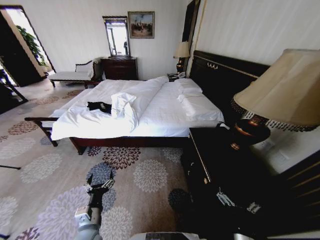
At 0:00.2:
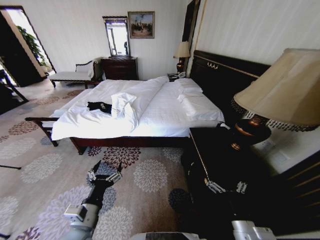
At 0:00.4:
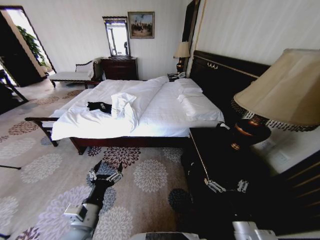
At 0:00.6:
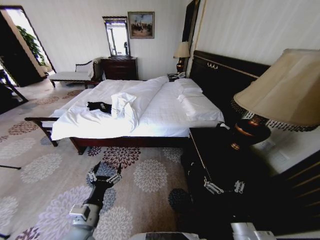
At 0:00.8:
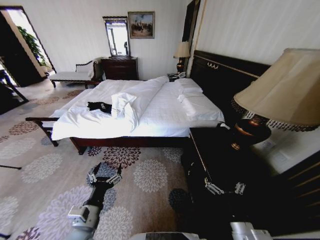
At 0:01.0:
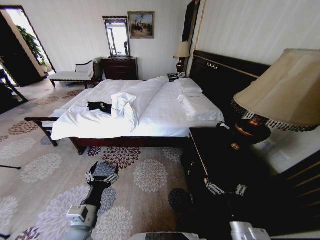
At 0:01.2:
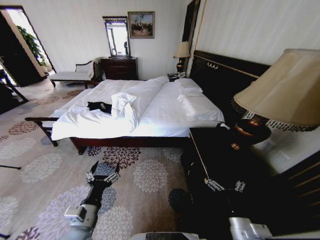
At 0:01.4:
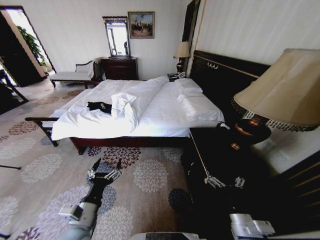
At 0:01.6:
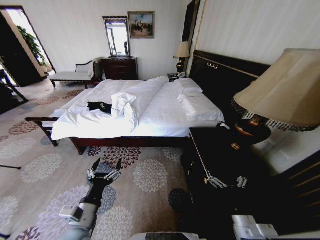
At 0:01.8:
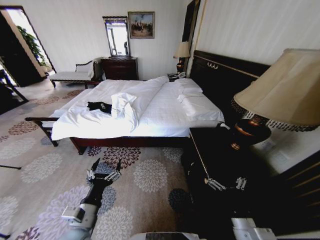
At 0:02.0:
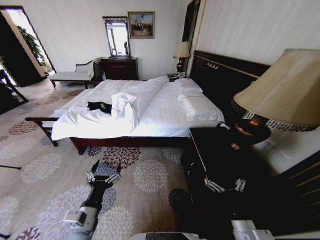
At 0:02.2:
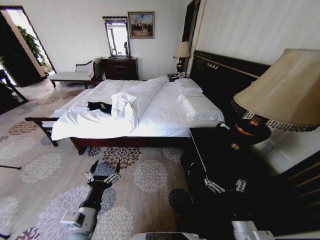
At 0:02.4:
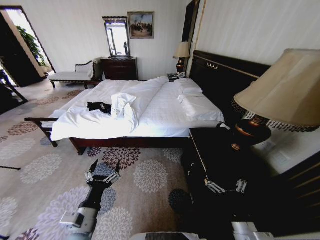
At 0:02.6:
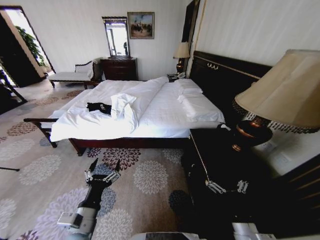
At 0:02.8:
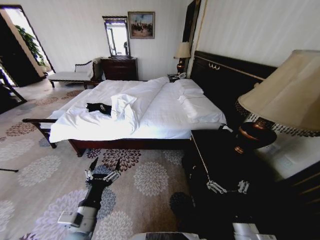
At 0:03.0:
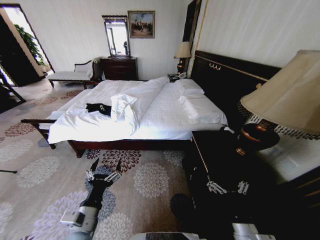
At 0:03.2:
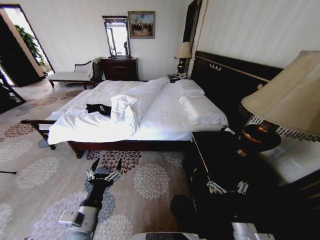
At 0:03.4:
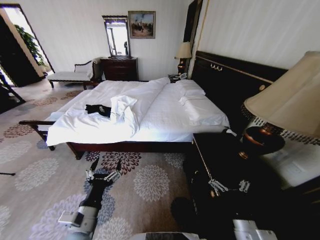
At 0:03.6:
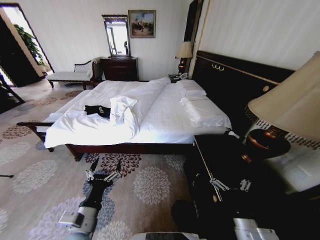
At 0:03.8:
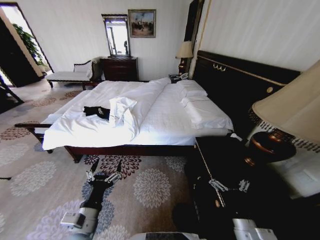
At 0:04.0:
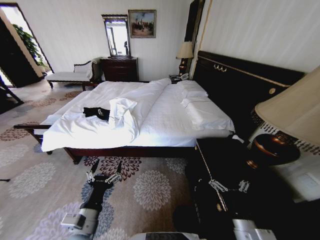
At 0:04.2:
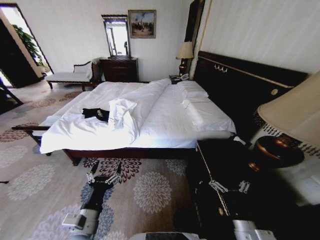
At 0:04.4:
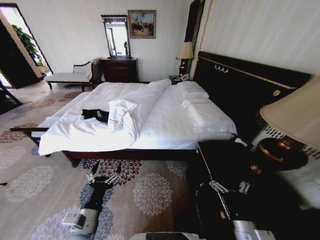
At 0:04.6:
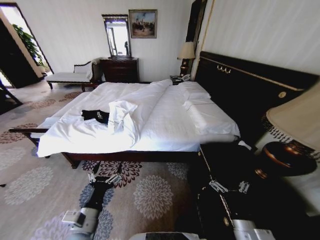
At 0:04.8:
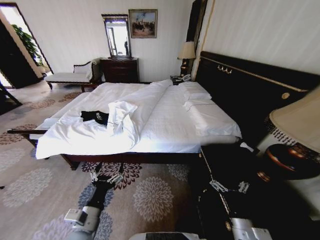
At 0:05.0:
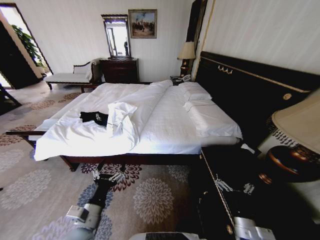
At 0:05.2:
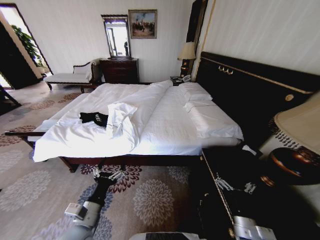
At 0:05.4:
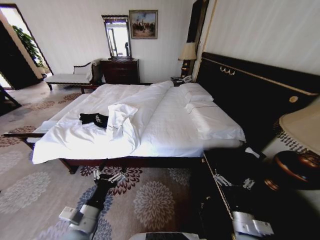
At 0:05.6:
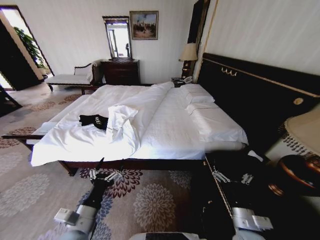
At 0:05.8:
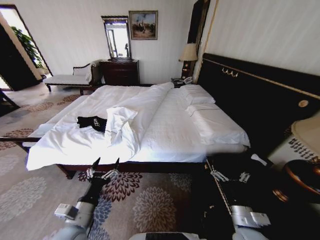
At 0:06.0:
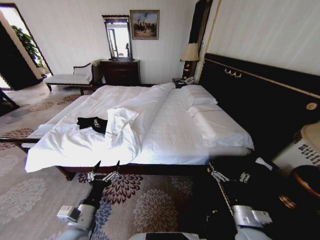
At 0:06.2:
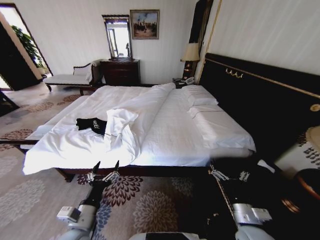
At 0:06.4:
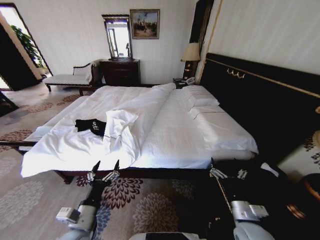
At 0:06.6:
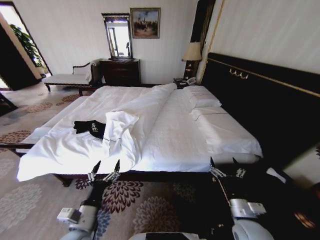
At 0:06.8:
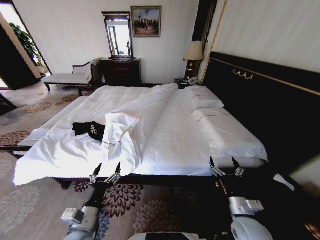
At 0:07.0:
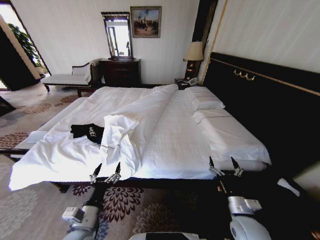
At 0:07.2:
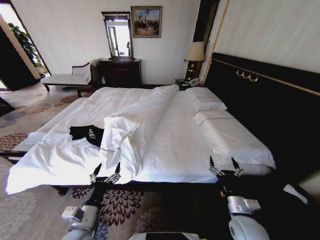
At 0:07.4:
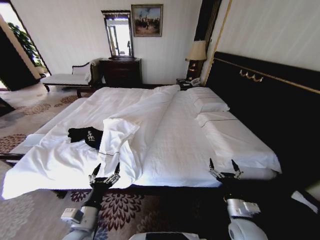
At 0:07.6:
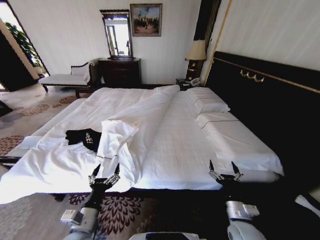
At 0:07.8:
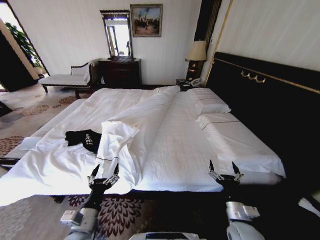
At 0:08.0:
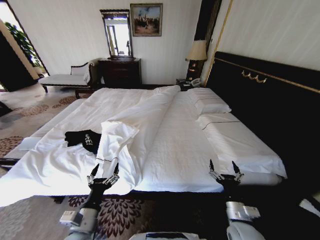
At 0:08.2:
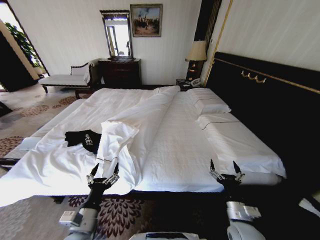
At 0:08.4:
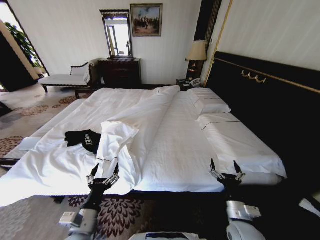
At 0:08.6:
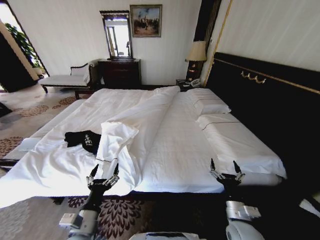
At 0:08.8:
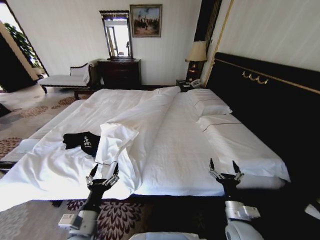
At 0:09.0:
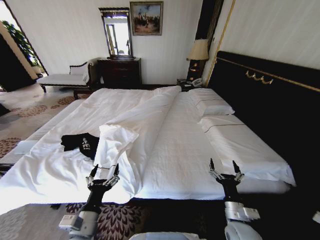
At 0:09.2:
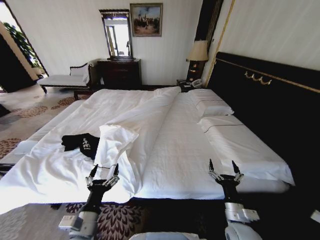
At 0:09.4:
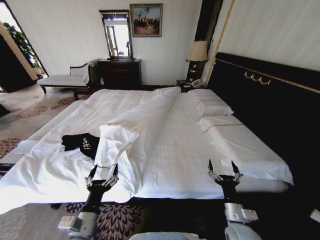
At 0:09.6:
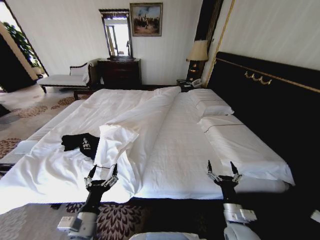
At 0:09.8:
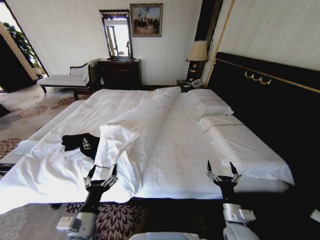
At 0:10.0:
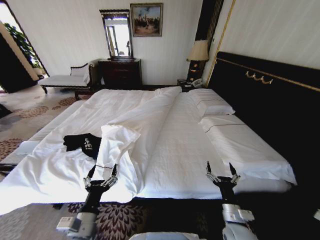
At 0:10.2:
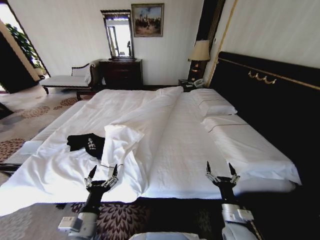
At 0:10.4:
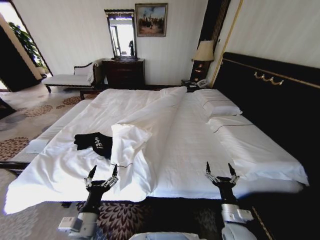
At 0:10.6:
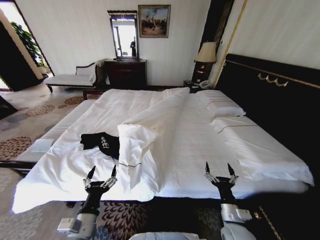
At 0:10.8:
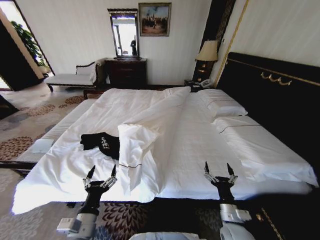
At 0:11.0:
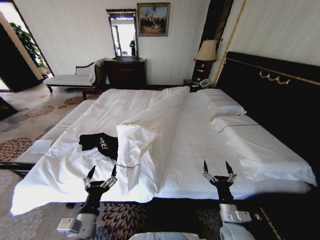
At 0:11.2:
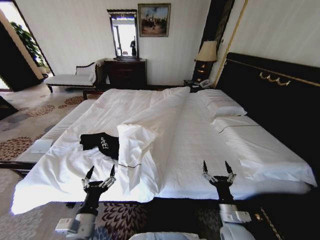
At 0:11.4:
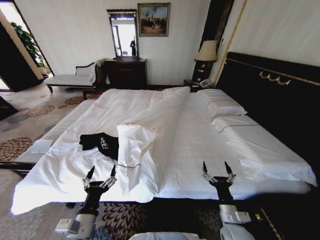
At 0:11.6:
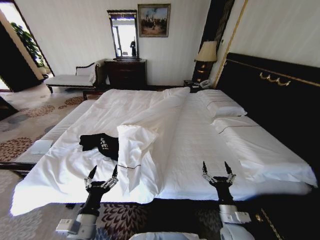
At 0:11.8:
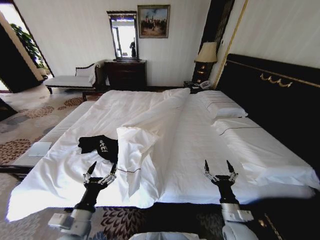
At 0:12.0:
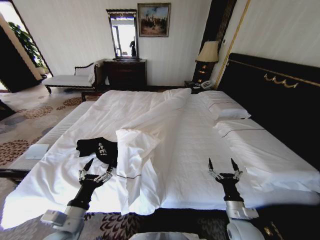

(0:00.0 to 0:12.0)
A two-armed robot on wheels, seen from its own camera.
Task of the whole recording: Fold the clothes on the bed.
0:01.6 - 0:03.0: There are only small adjustments of the grippers.
0:10.4 - 0:12.0: The left gripper shifts by about 5 cm.

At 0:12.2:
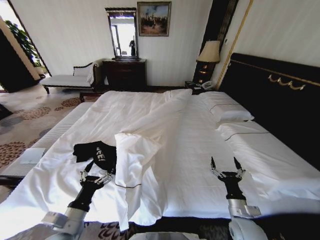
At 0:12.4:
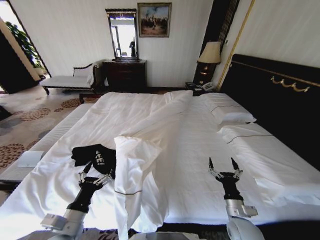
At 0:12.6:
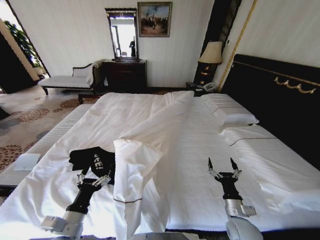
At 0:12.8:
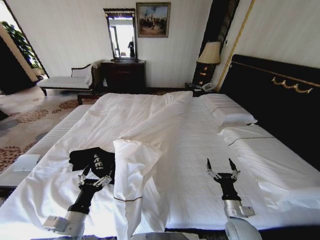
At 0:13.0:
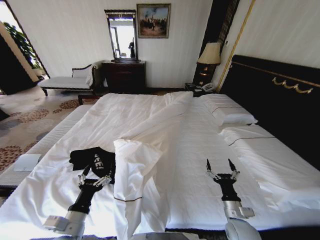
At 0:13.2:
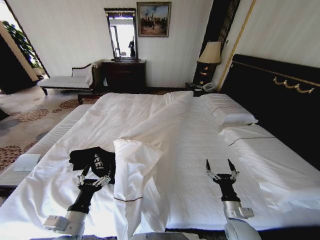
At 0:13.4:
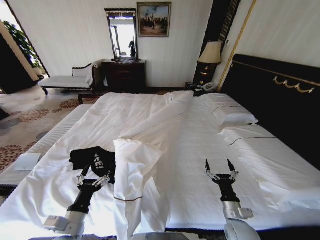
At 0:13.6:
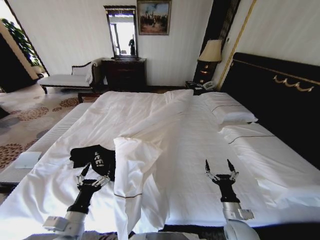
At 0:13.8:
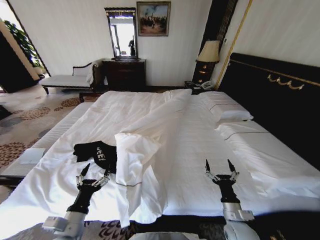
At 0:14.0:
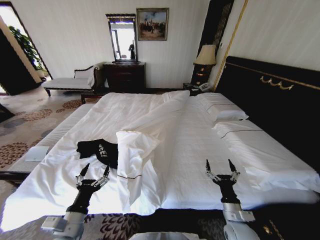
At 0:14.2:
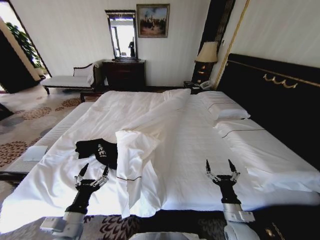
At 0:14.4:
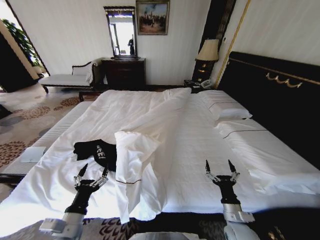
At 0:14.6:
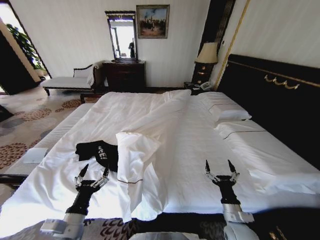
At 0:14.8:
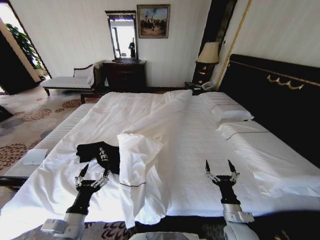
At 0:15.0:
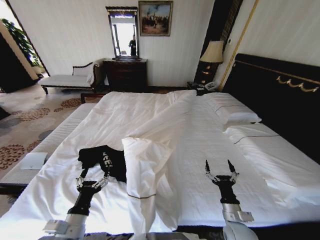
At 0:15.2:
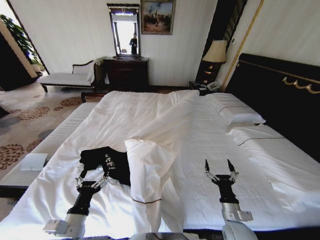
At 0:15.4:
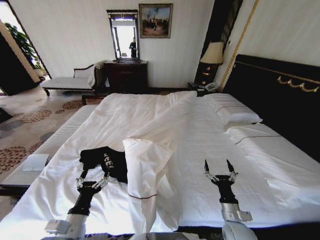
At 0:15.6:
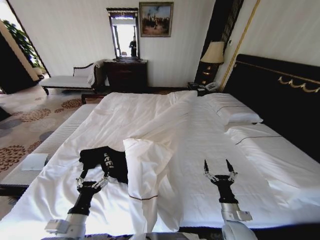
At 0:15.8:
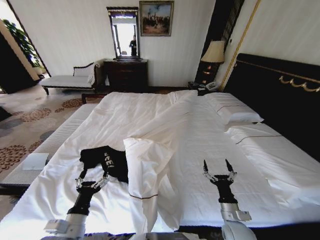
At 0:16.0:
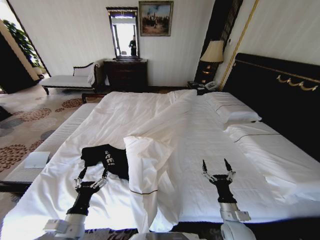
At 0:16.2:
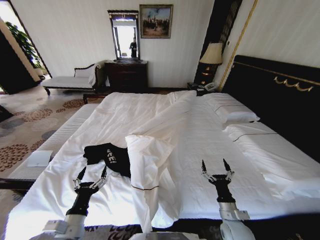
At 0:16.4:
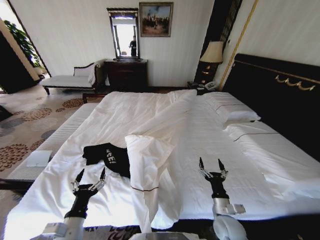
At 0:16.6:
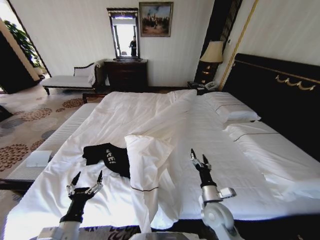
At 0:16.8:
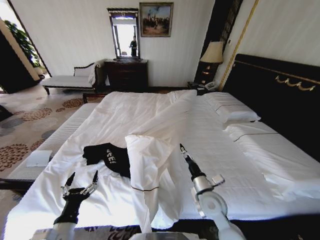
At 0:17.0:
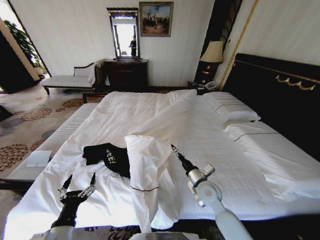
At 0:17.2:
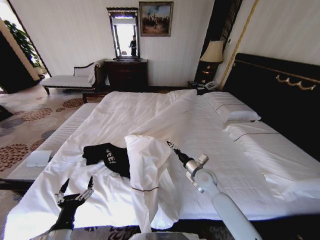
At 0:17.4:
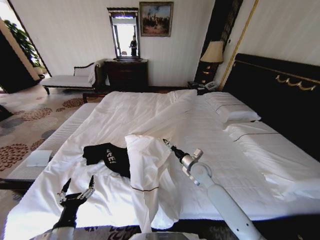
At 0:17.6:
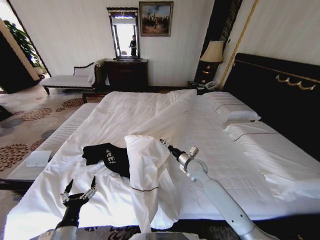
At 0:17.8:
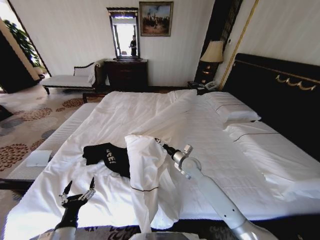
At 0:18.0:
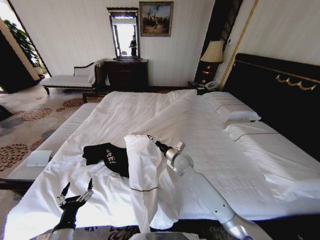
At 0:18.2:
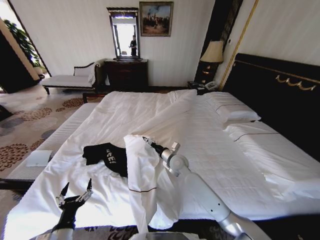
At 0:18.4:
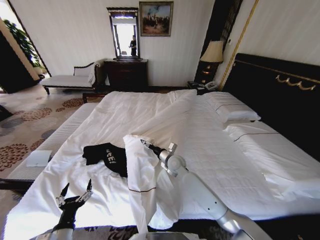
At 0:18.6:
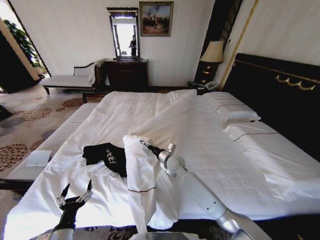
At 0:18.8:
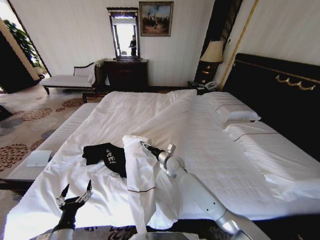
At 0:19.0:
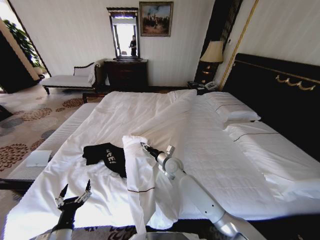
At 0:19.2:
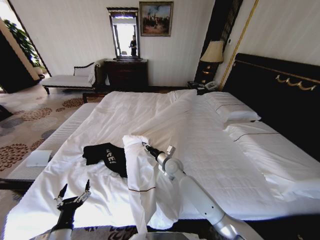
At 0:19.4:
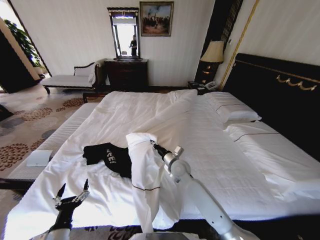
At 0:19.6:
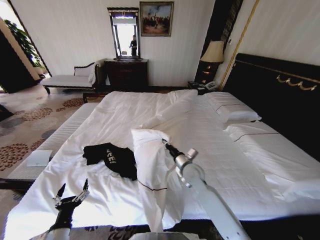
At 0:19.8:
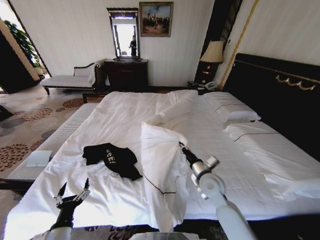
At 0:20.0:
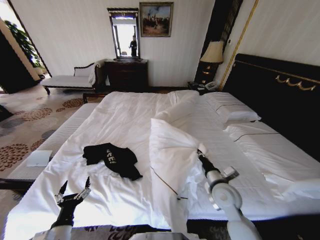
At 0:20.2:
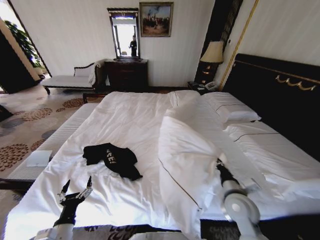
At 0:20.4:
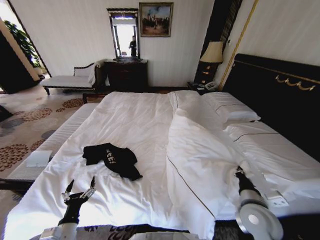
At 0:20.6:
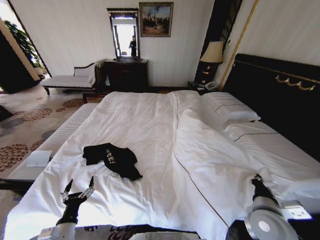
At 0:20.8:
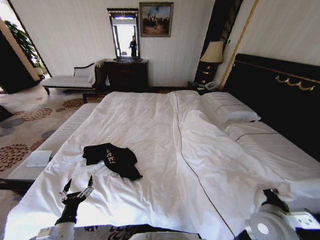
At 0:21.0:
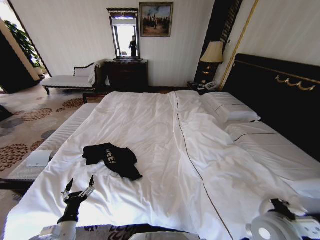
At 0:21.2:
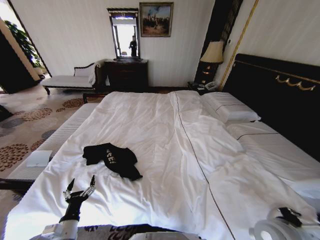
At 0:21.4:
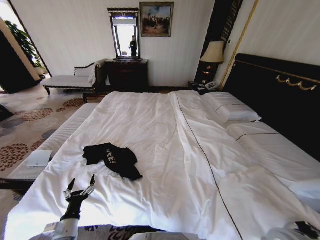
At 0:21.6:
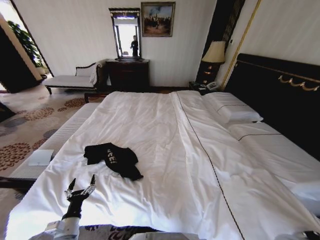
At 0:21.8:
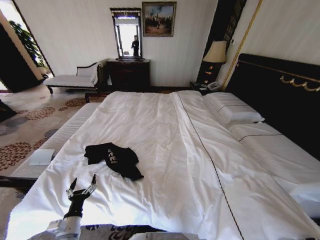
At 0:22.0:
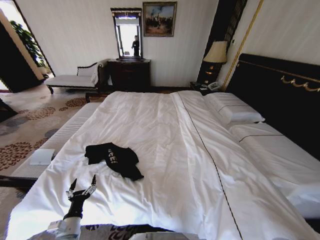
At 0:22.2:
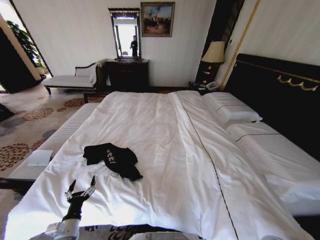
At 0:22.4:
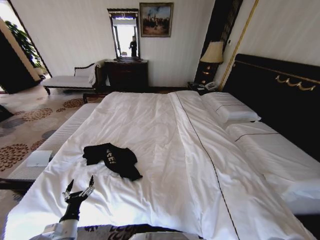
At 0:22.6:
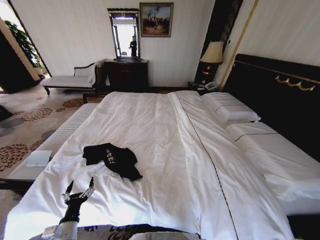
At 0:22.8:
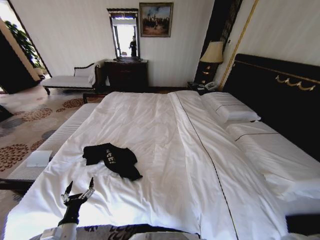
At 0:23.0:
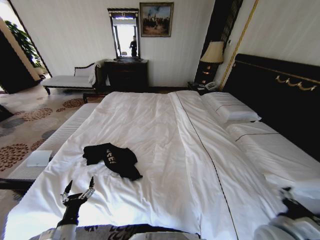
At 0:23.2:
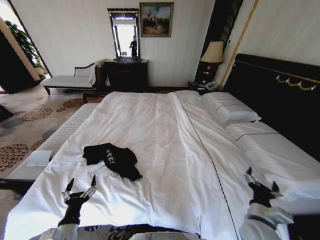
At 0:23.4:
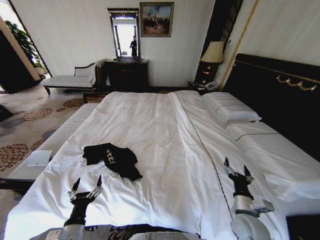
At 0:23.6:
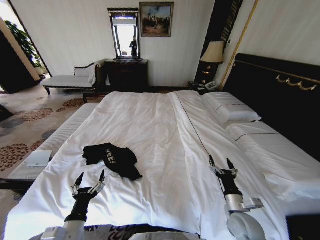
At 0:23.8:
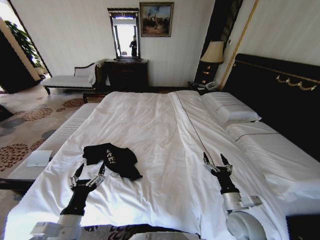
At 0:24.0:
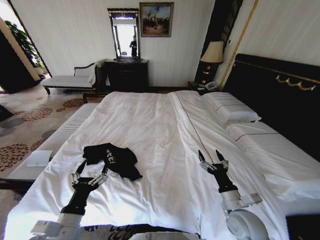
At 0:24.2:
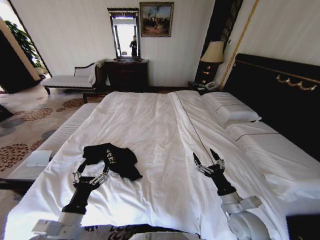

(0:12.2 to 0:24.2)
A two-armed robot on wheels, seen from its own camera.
Task of the whole recording: Fold the clothes on the bed.
0:12.2 - 0:13.8: There are only small adjustments of the grippers.
0:15.2 - 0:16.6: The right gripper heads to the left and forward, covering about 10 cm.
0:16.6 - 0:18.2: The right gripper moves forward and to the left, approximately 25 cm. Meanwhile the left gripper changes place by some 5 cm.
0:18.2 - 0:19.8: The right gripper goes roughly 15 cm backward and to the right, and closes up.
0:19.8 - 0:21.2: The right gripper heads backward and to the right, covering roughly 20 cm.
0:21.2 - 0:22.6: The right gripper shifts roughly 10 cm to the right, travels downward and back again, some 10 cm each way, and opens.
0:22.6 - 0:24.2: The right gripper moves to the left and forward, some 15 cm, and opens up. The left gripper is displaced upward and to the right by approximately 15 cm.
